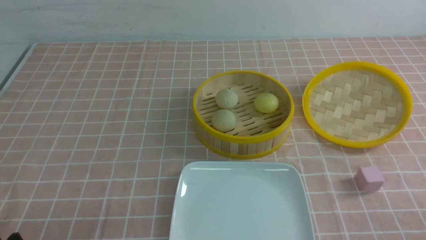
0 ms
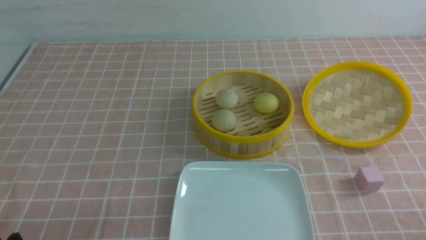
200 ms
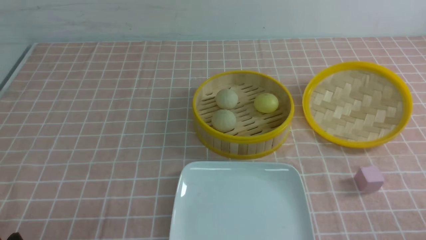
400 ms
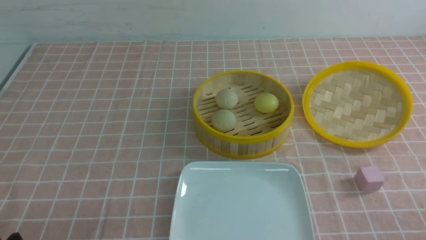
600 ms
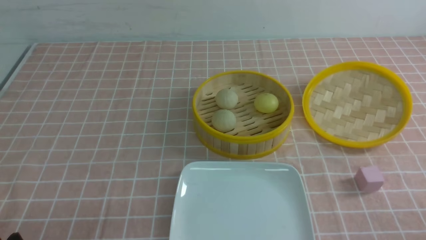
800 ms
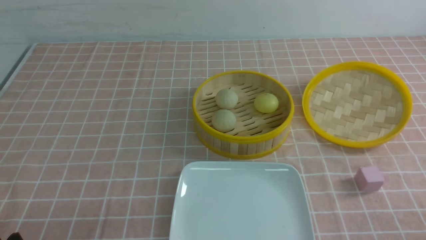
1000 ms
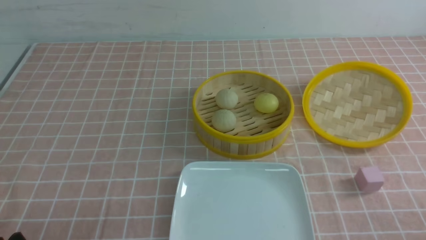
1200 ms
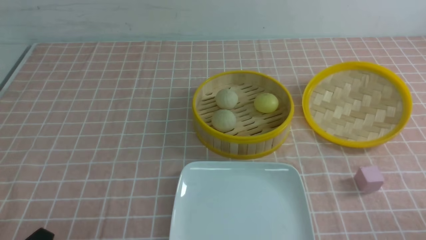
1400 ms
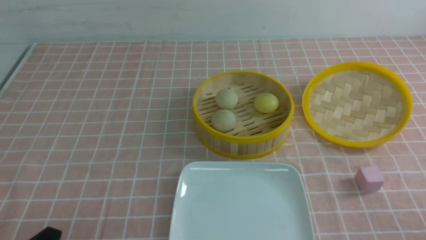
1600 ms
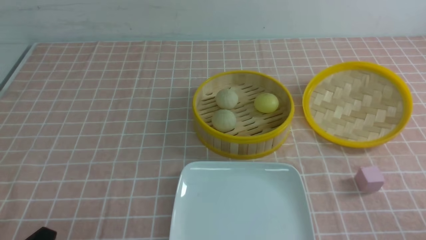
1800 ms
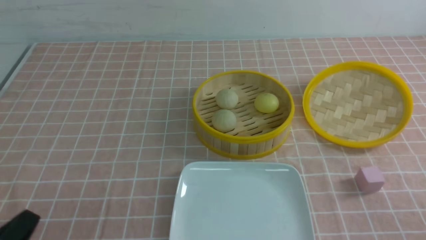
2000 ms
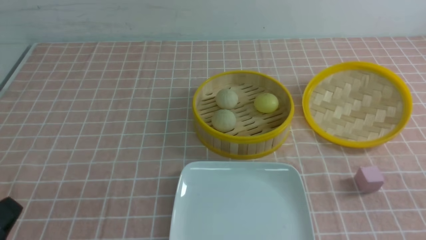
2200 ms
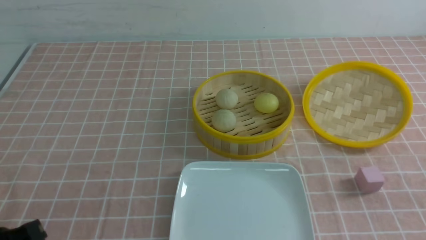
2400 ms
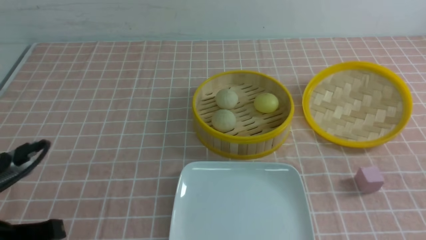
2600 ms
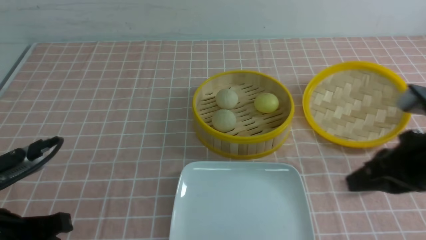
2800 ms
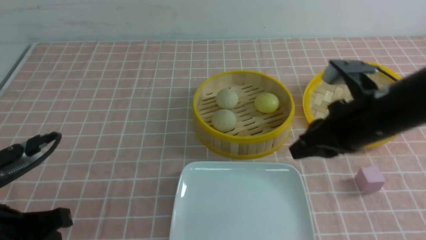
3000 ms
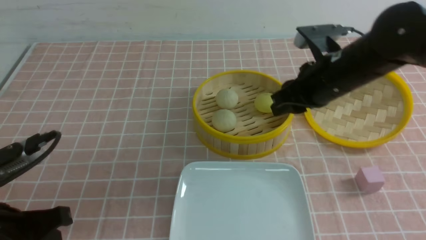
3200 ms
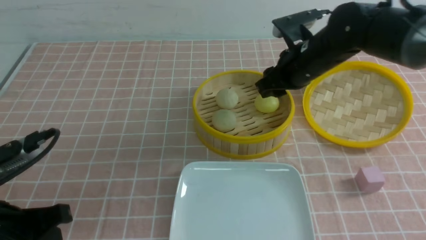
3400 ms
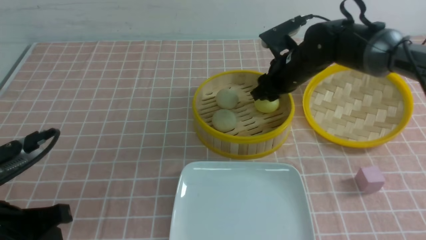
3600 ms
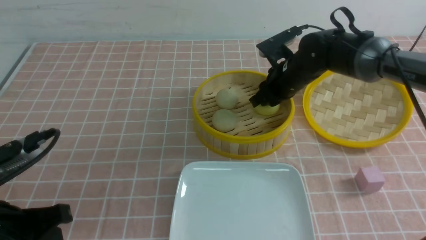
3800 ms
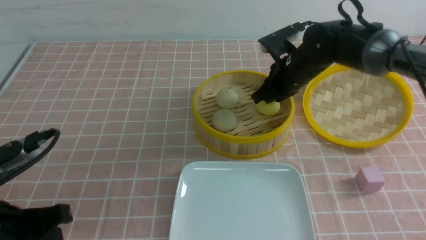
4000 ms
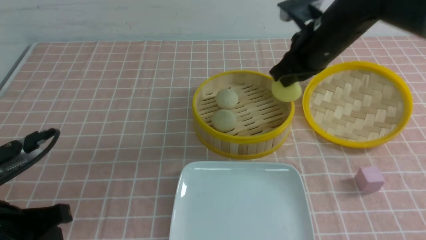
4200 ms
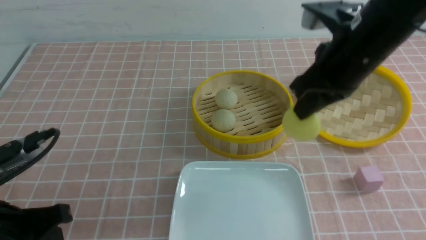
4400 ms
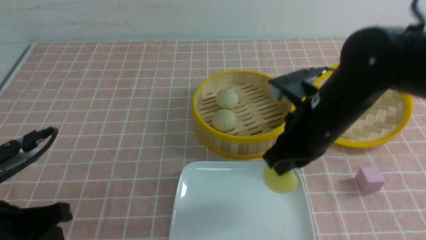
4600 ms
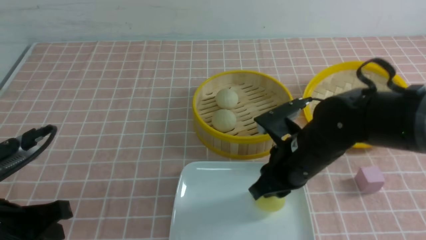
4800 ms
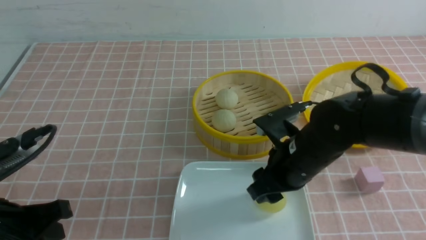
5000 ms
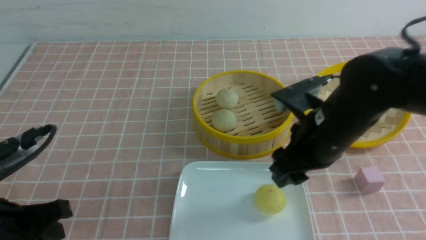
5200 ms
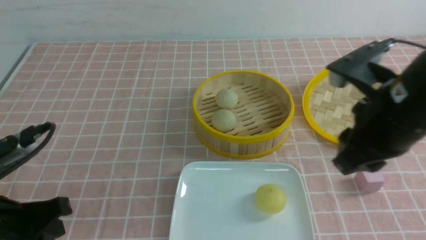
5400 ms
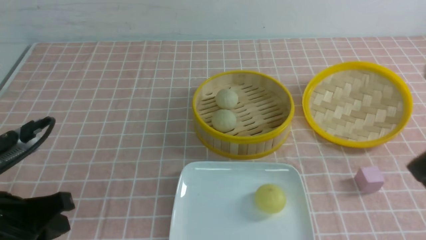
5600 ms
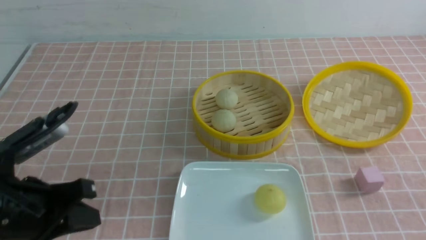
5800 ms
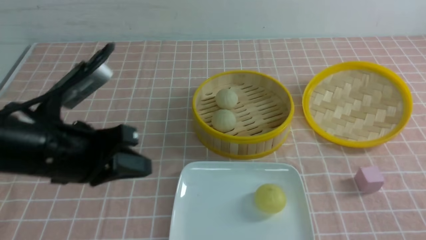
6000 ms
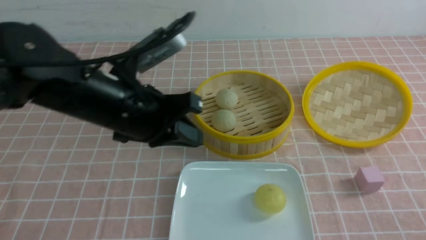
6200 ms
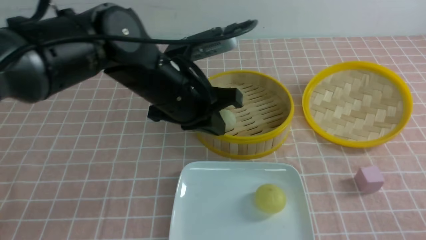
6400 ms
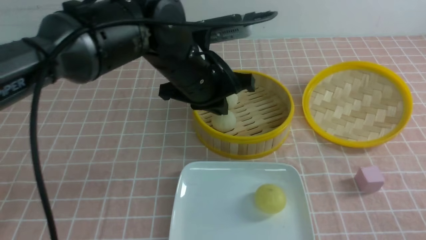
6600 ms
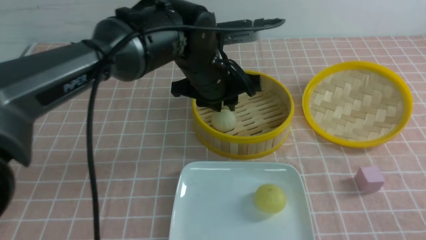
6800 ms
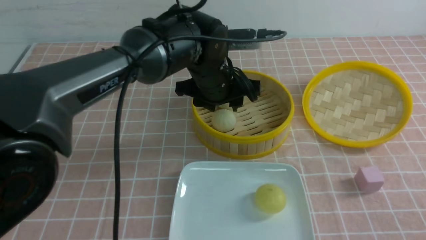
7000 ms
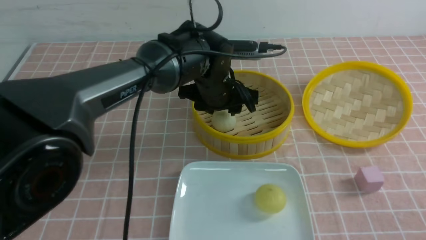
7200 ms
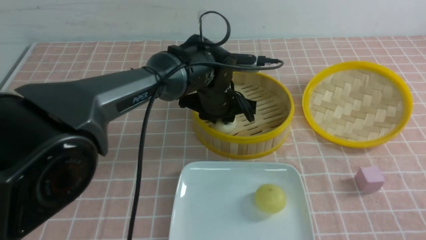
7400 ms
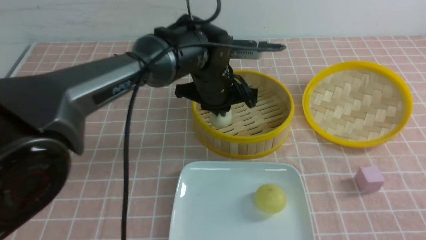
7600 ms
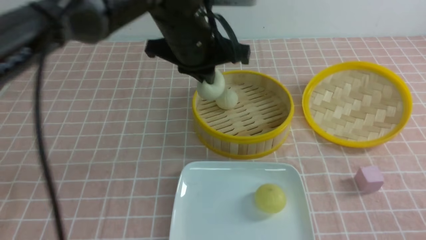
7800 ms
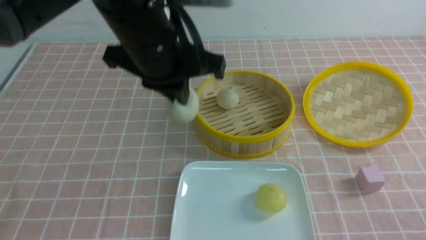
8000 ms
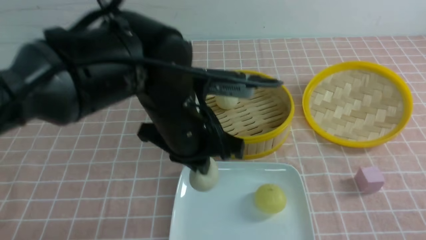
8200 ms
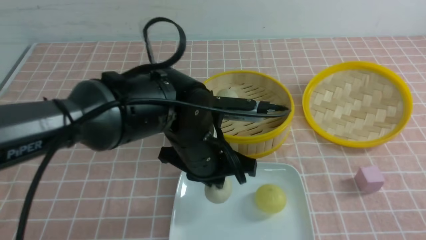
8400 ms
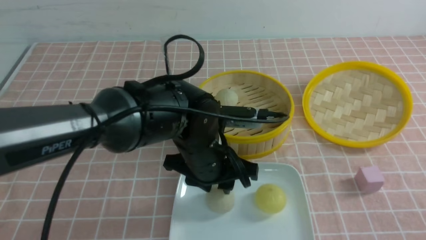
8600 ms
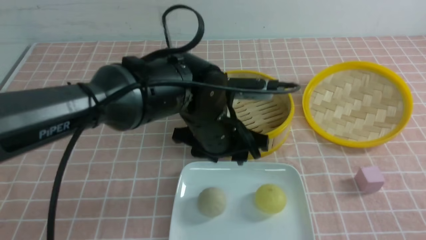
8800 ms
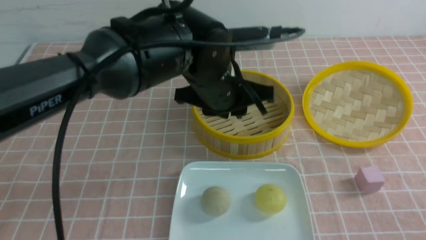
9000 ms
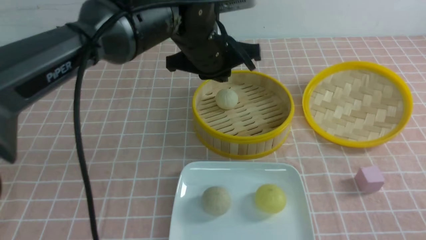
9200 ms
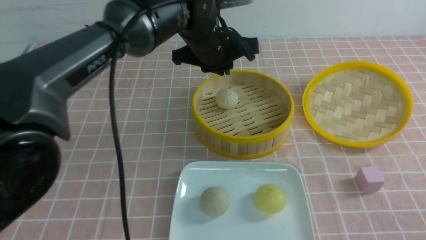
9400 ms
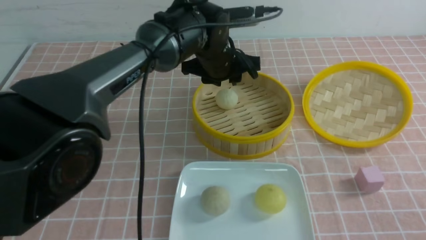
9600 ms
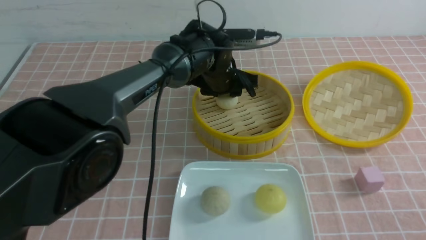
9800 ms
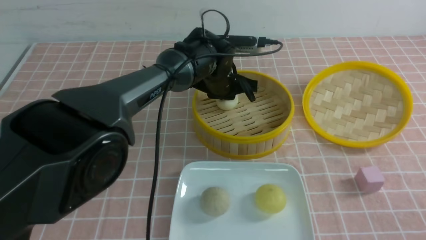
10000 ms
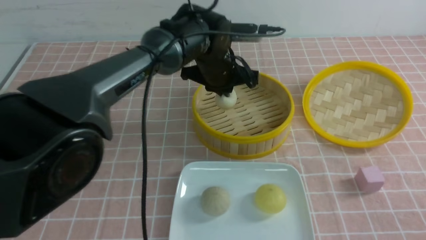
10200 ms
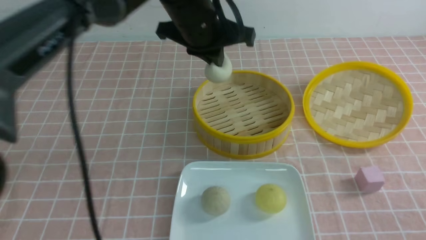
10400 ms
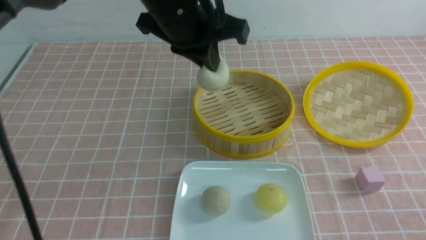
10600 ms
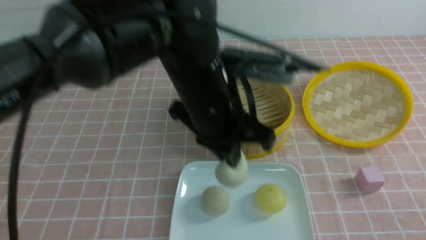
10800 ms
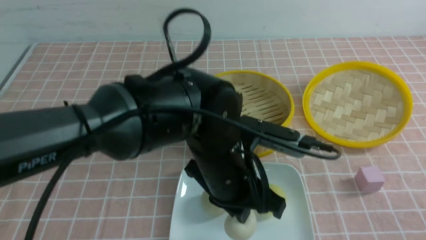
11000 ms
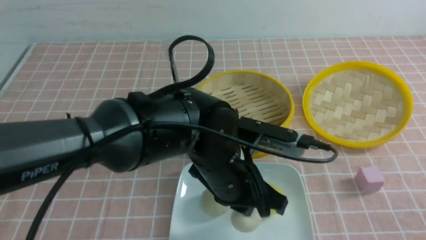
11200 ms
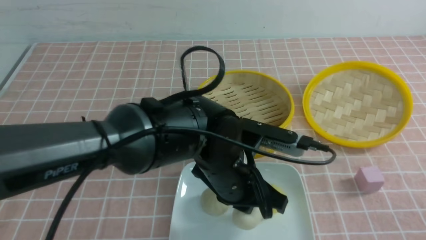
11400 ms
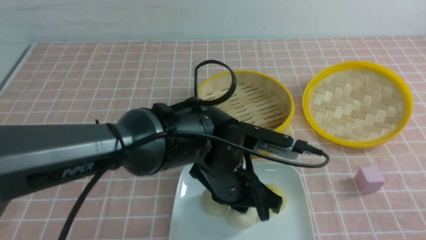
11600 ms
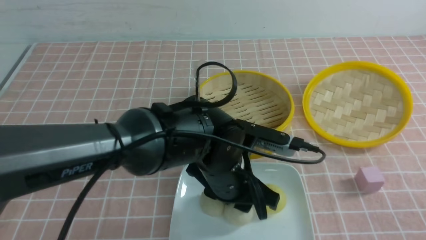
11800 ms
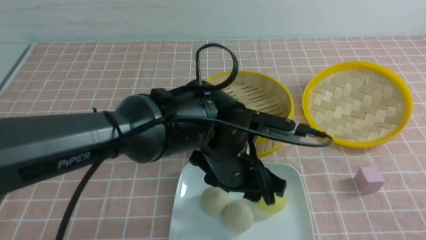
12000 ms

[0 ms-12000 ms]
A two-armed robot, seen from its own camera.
Step, 0 ms to 3800 ms: use the right arm to grab the steamed stuffed bun that is closest to it.
Step, 4000 ms to 5000 ms: use the right arm to put the steamed stuffed bun into the plate.
Step, 5400 ms to 7400 ms: use the left arm to grab the steamed stuffed bun that is closest to it.
Step, 7600 ms to 8600 ms: use the left arm to put the steamed stuffed bun into the plate.
Step, 8800 ms to 10000 ms: use the left arm to grab the steamed stuffed bun that is closest to it.
Step, 10200 ms to 11800 ms: use the left arm to put the steamed stuffed bun into the plate.
1600 ms to 3000 ms: The right gripper heads forward, to the left and upward, covering approximately 25 cm, and closes, then reopens. Meanwhile the left gripper shifts some 10 cm forward and upward, and closes.
3000 ms to 4400 ms: The right gripper moves some 15 cm forward and comes back, and opens, then closes again.
4400 ms to 6000 ms: The right gripper moves backward and to the right, about 35 cm, and opens and closes again; the left gripper shifts approximately 10 cm forward, to the right and upward.
6000 ms to 7600 ms: The left gripper moves to the right and forward, some 25 cm, and opens, then closes again.
7600 ms to 9000 ms: The left gripper moves up and down over roughly 10 cm, changing direction 2 times.
9000 ms to 10400 ms: The left gripper moves upward, some 5 cm, and closes up.
10400 ms to 12000 ms: The left gripper travels downward and backward by some 15 cm, and opens.

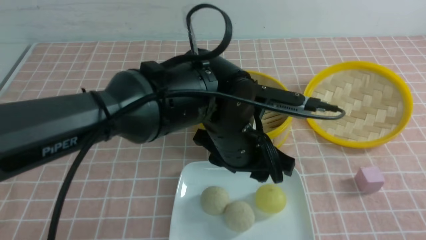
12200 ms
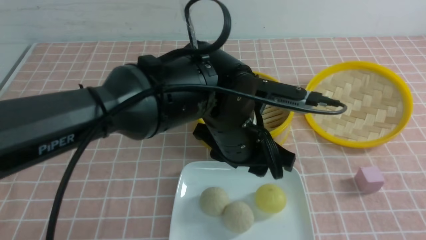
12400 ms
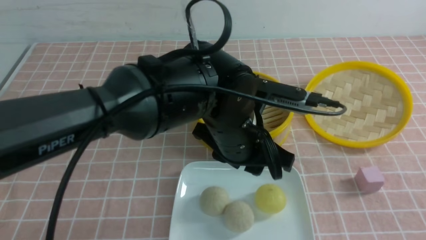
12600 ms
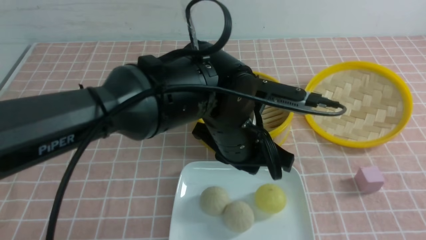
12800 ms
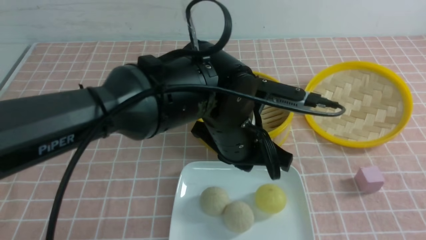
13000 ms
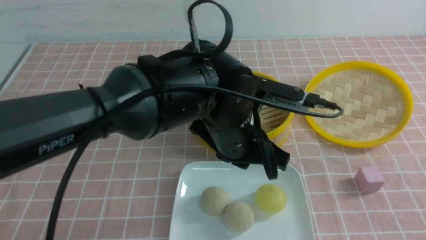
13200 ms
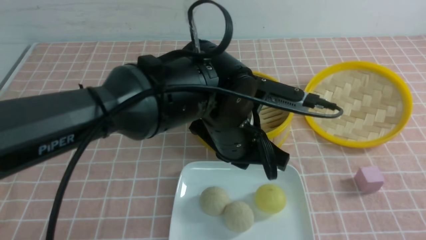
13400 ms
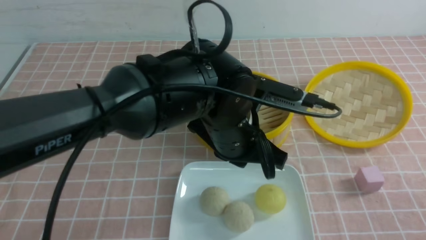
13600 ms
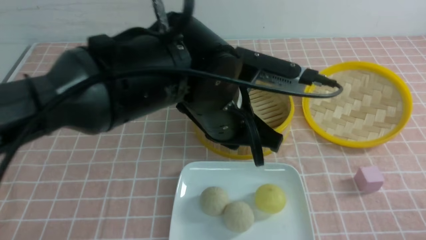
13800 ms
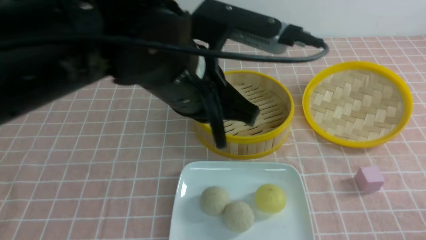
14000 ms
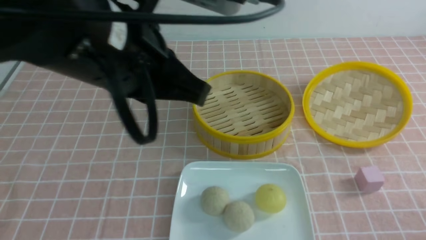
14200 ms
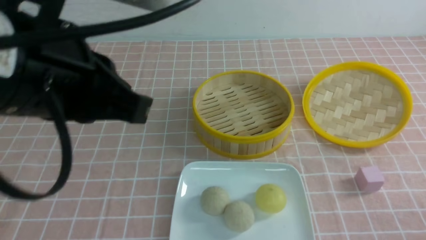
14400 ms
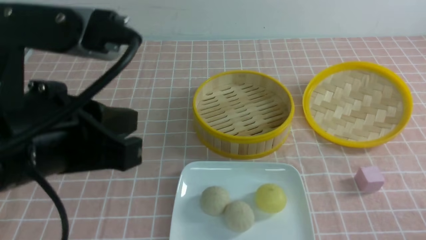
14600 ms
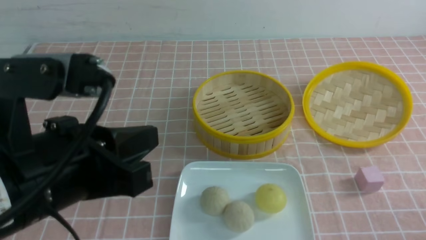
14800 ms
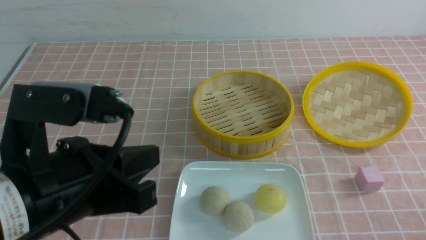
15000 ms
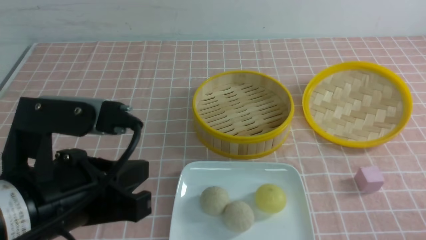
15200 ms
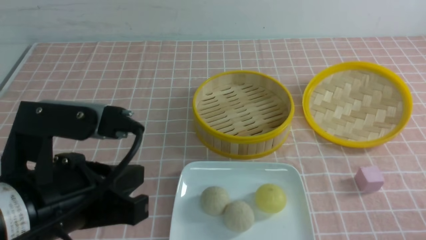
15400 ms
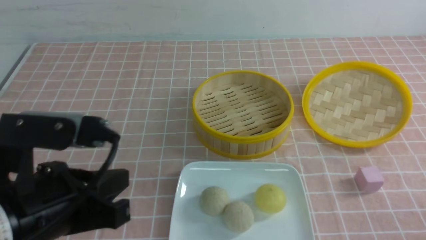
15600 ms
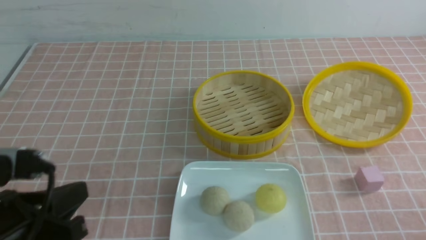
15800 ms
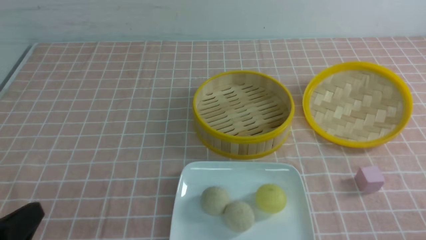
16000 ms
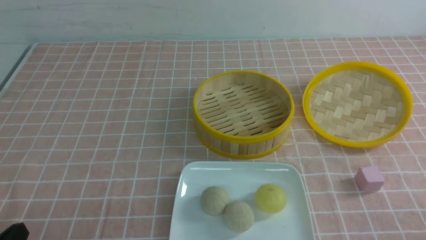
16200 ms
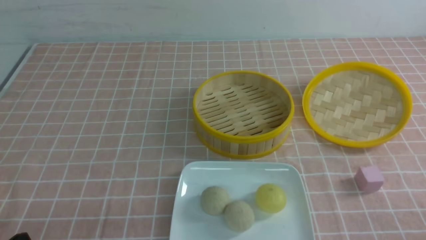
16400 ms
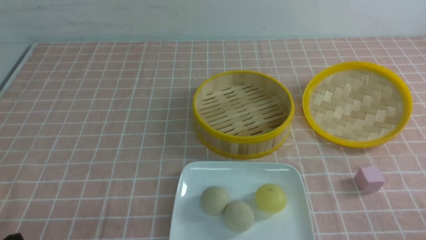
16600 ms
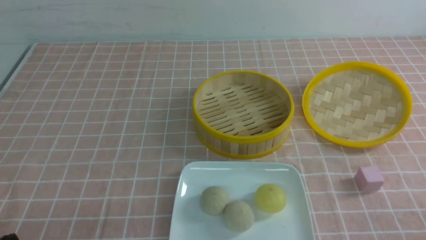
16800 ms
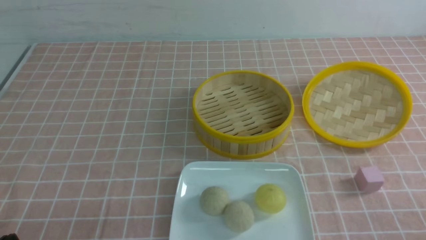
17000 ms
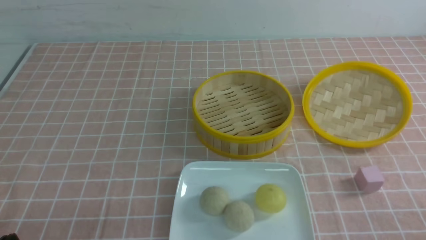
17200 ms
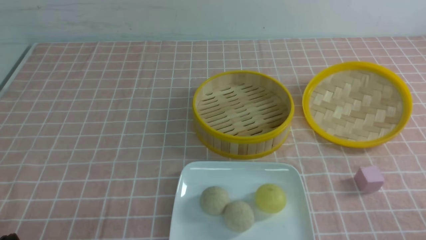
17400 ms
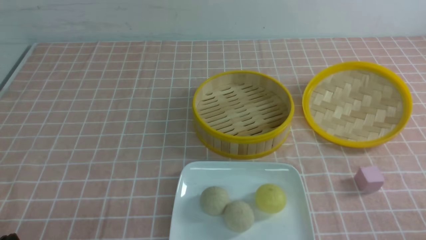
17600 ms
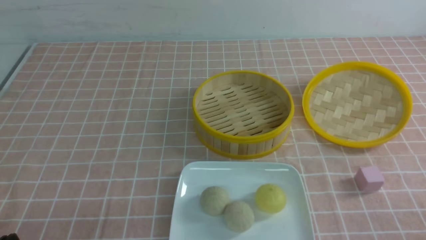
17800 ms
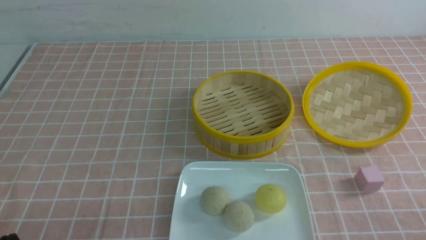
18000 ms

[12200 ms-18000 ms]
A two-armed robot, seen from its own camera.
12200 ms to 13600 ms: The left gripper closes; the right gripper is displaced downward by about 5 cm.
13600 ms to 15000 ms: The left gripper travels to the left and backward by approximately 20 cm.
15000 ms to 16600 ms: The left gripper shifts roughly 20 cm downward, to the left and backward.
16600 ms to 18000 ms: Both grippers stay about where they are.
